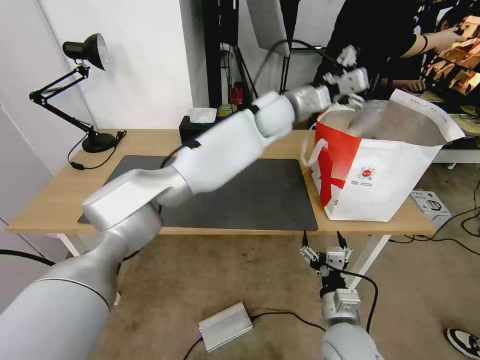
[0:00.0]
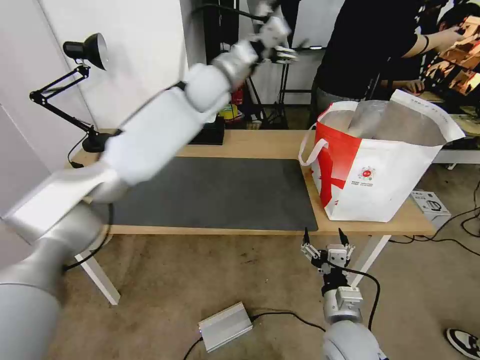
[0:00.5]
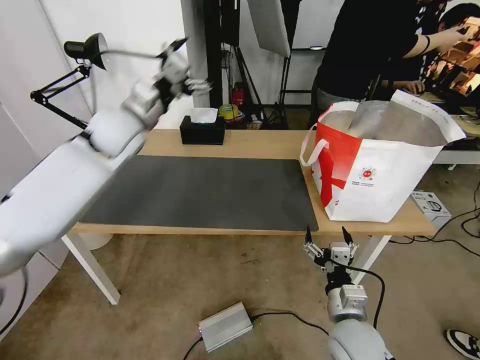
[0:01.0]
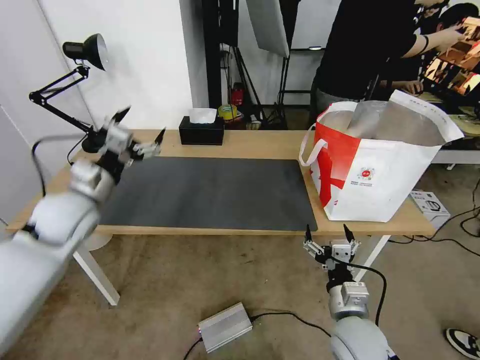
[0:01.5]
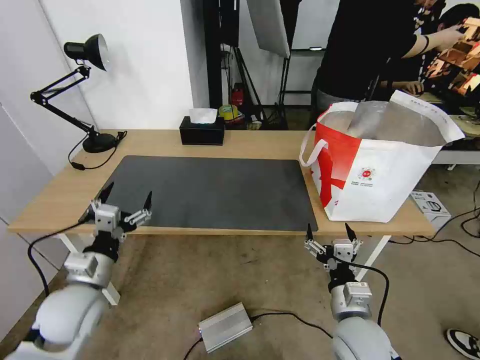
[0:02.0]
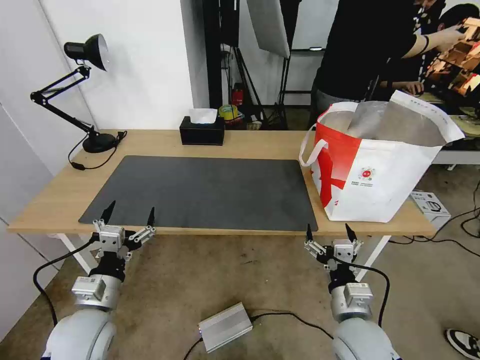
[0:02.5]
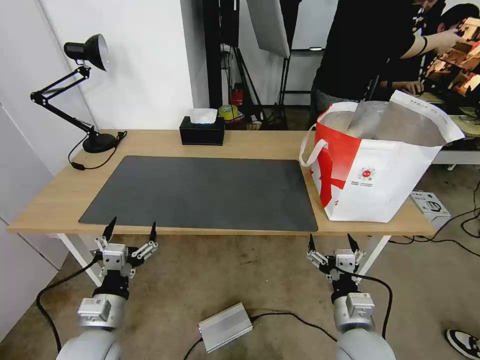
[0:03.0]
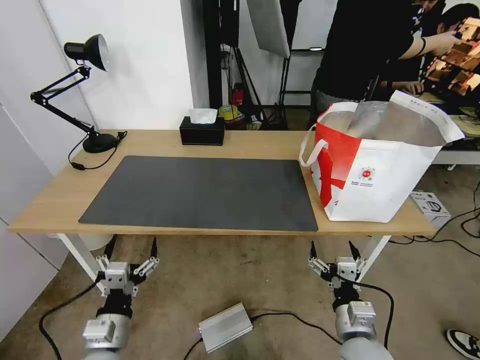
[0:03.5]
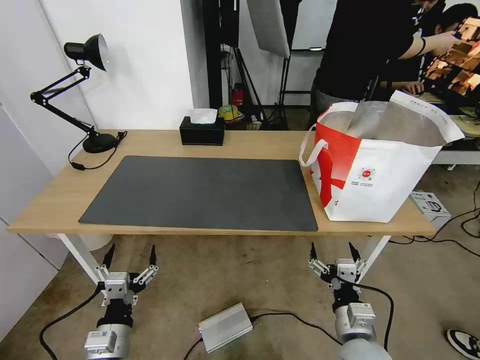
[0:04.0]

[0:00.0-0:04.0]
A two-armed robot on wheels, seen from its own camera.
Task of the whole recording: Pick up the trash from the table and place it into the takeout bag.
0:00.0 to 0:02.0: The left gripper travels to the left, backward and downward by approximately 50 cm.
0:02.0 to 0:04.0: The left gripper moves backward, downward and to the right, about 15 cm.
